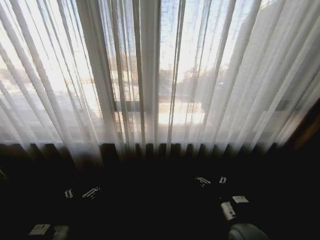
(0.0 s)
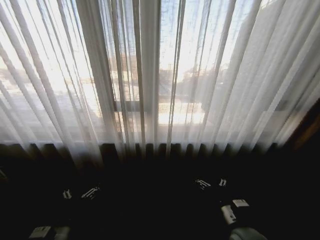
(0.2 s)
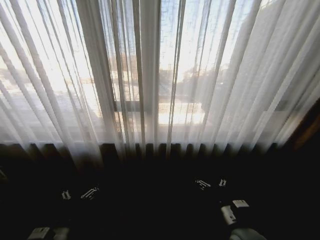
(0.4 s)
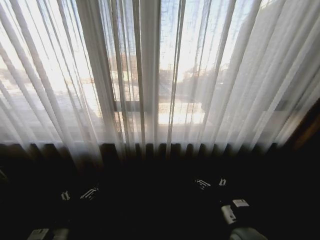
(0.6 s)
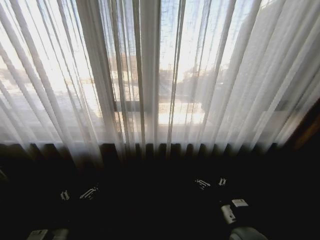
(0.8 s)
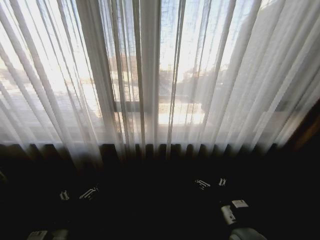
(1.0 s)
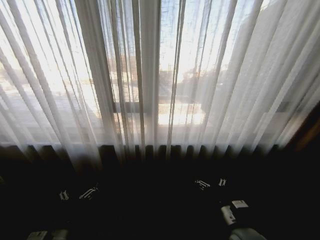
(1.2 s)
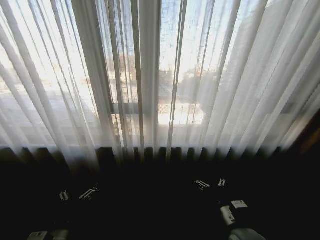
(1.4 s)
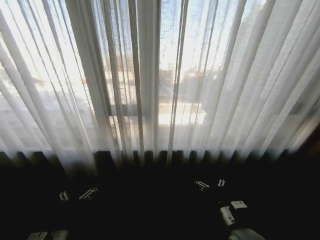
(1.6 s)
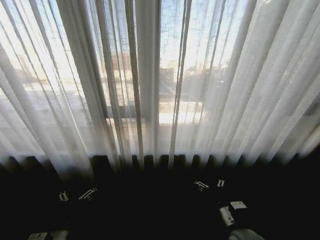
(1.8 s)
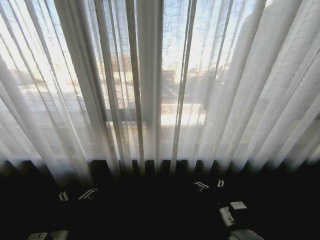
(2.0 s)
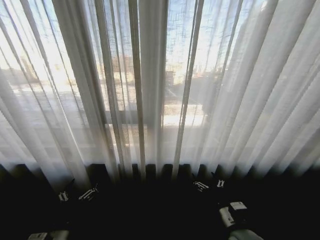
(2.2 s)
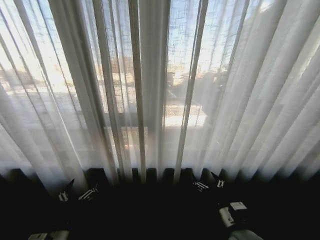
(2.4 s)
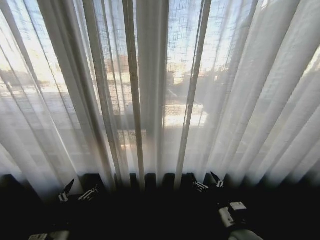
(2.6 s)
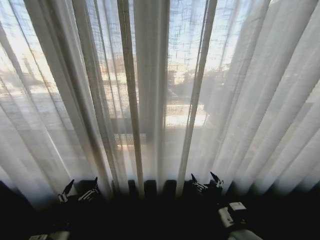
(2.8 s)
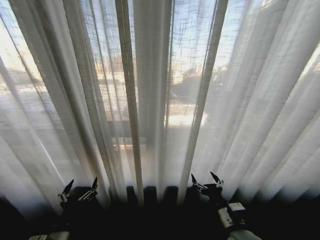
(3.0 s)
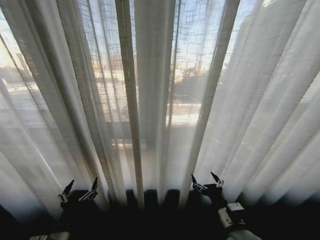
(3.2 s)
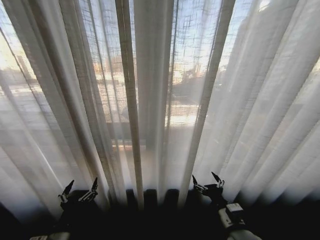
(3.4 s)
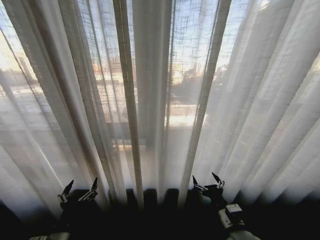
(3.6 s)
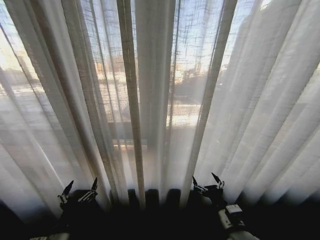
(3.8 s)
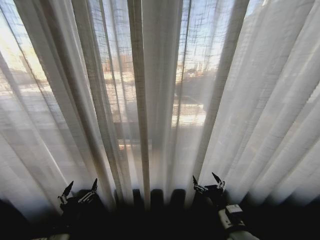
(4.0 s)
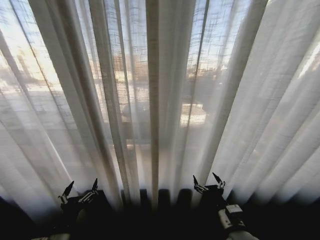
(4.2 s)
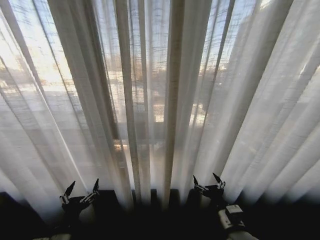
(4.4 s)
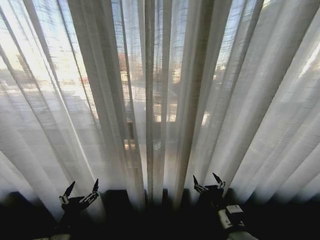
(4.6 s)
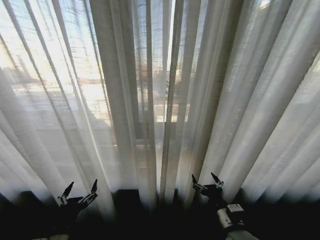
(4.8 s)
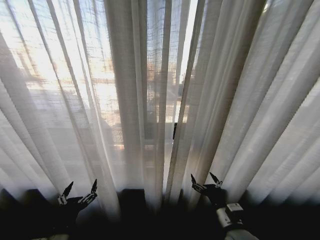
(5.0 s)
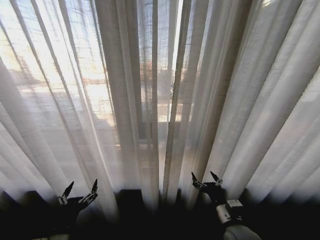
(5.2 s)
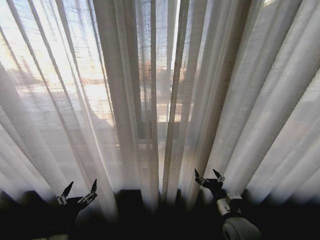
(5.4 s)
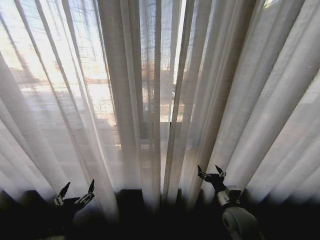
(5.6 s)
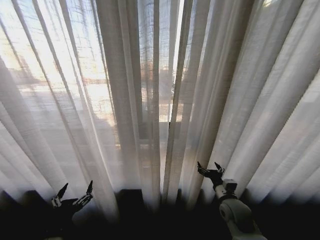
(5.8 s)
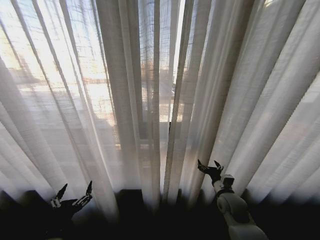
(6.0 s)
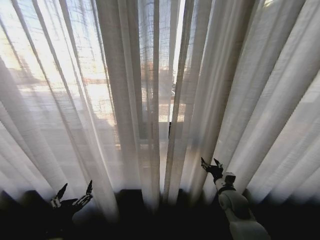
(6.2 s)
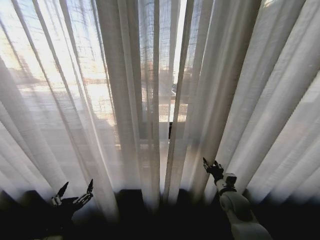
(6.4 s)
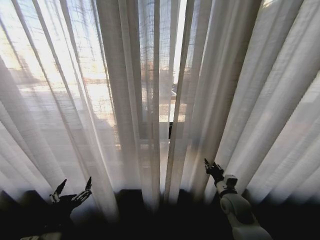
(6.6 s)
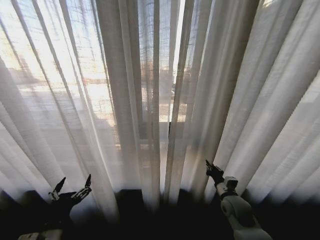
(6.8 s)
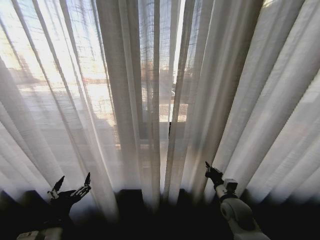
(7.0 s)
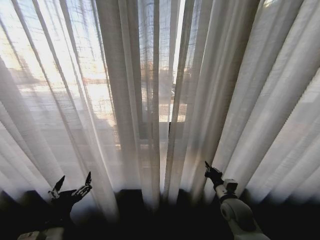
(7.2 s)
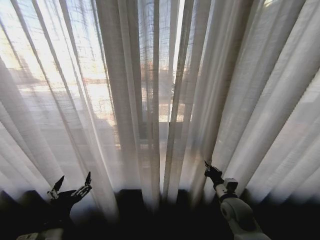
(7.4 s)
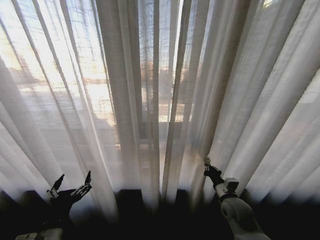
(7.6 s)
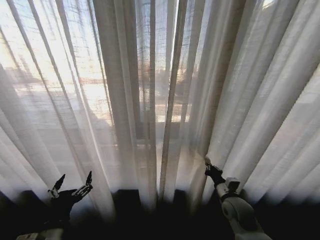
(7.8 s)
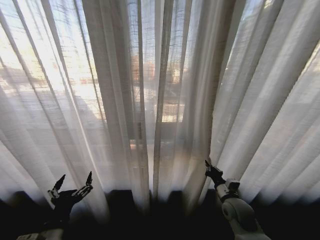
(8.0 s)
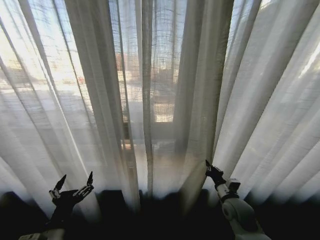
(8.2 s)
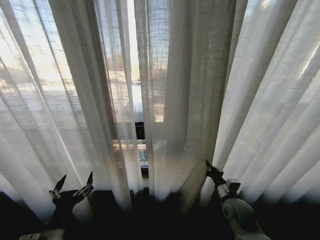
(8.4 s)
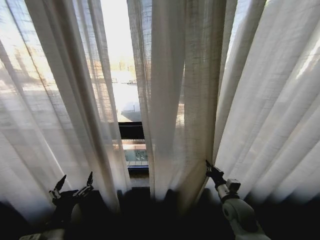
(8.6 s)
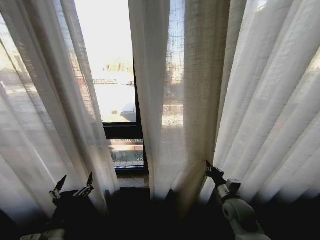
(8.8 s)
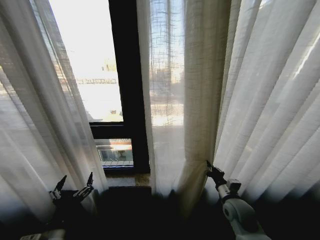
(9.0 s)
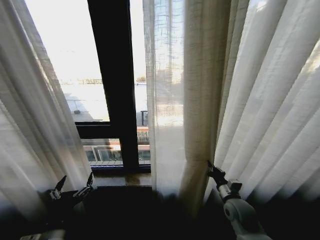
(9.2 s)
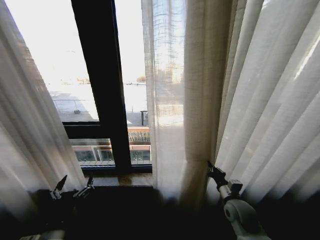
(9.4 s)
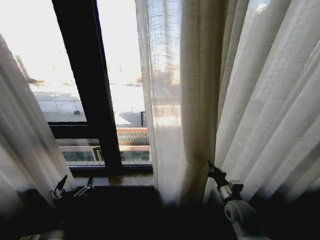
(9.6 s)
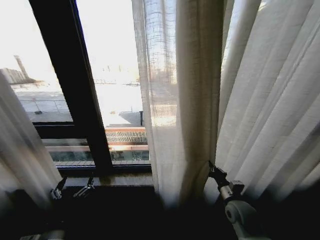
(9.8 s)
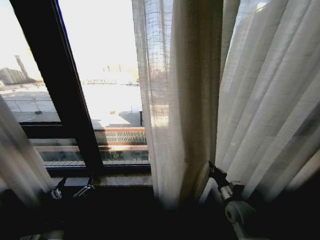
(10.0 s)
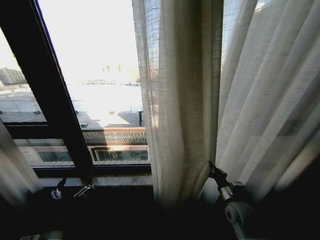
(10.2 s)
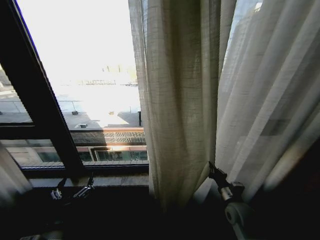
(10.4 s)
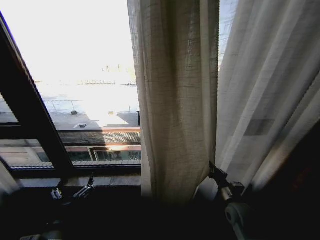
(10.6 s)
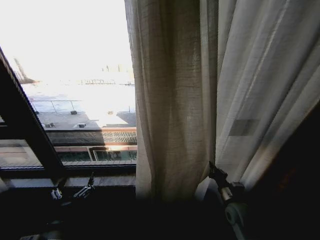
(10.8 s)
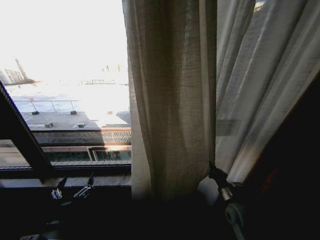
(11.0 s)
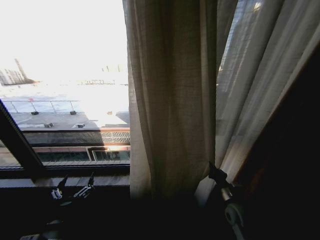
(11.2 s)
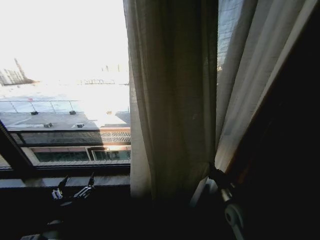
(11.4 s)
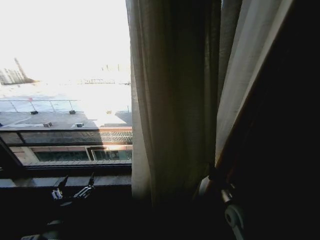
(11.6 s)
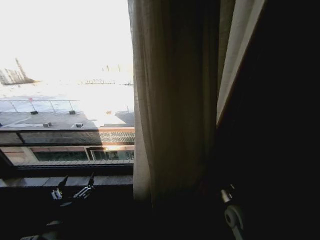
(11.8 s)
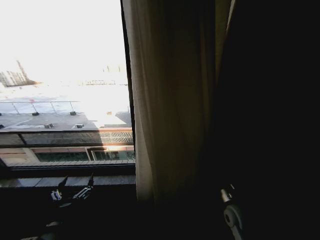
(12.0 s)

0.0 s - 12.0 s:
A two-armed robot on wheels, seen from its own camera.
Task of the whole recording: Open the curtains by pulling them apart, changing their state from closed to fully open.
4.4 s - 6.0 s: The right gripper travels forward by about 15 cm.
6.0 s - 7.6 s: The right gripper closes its fingers.

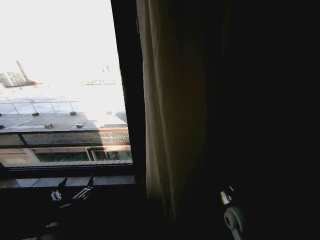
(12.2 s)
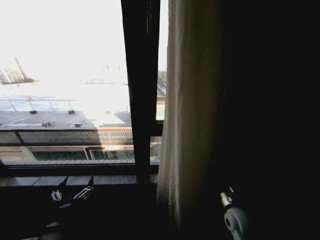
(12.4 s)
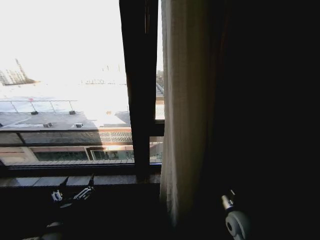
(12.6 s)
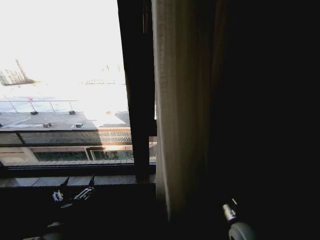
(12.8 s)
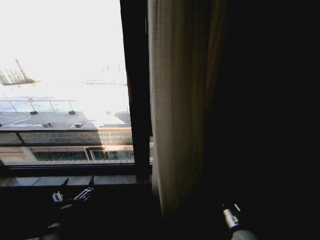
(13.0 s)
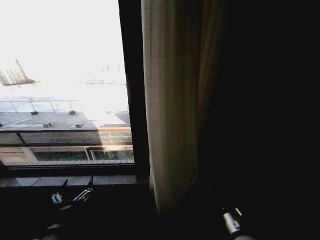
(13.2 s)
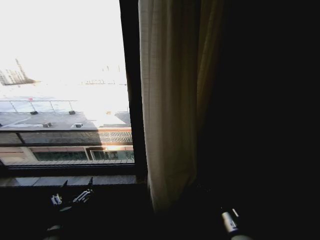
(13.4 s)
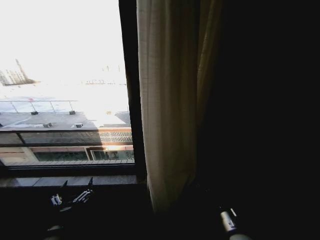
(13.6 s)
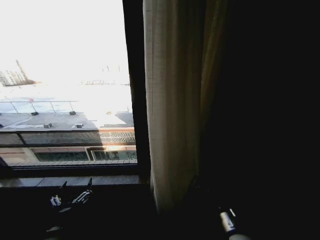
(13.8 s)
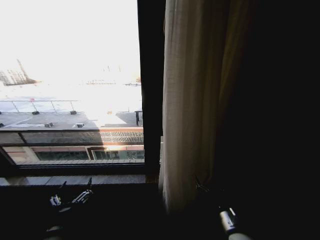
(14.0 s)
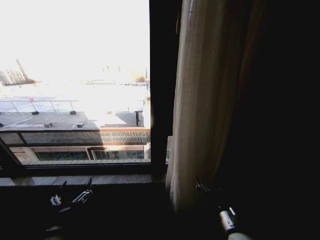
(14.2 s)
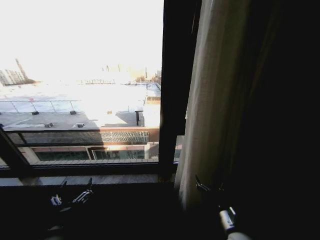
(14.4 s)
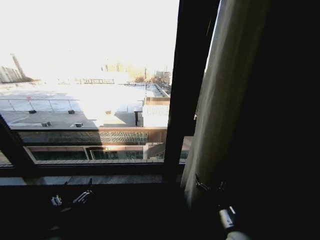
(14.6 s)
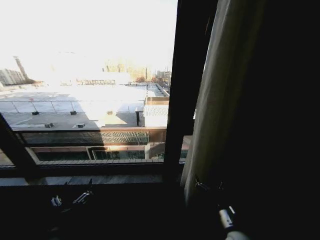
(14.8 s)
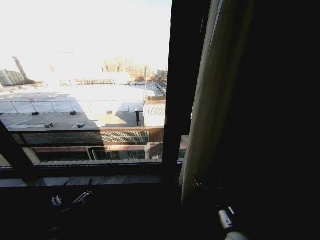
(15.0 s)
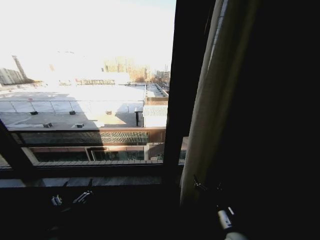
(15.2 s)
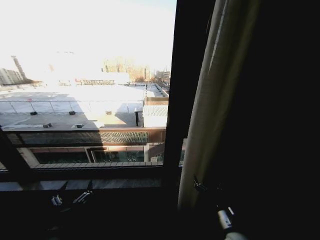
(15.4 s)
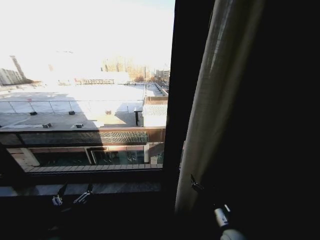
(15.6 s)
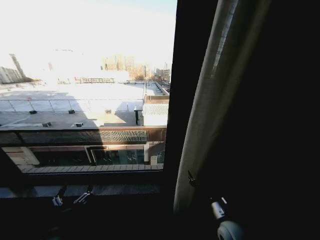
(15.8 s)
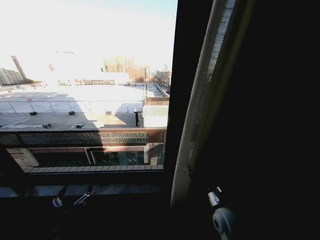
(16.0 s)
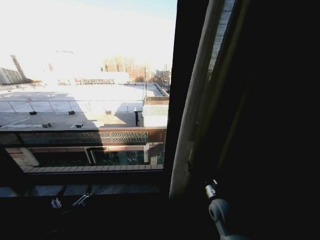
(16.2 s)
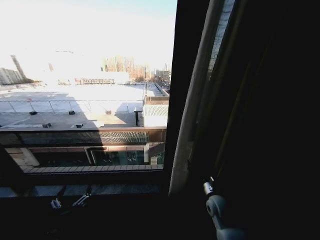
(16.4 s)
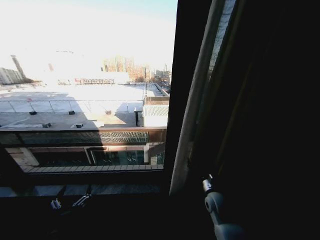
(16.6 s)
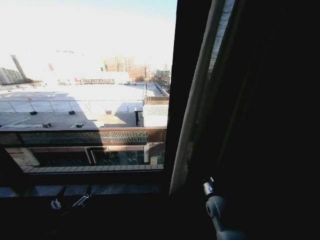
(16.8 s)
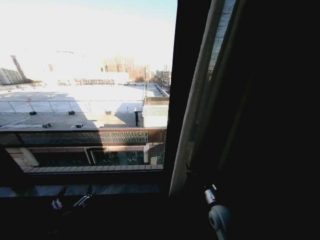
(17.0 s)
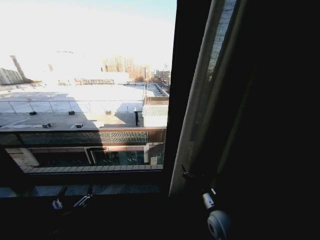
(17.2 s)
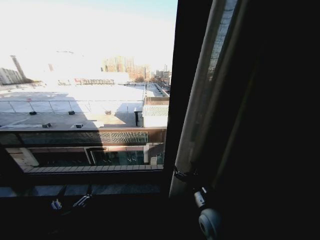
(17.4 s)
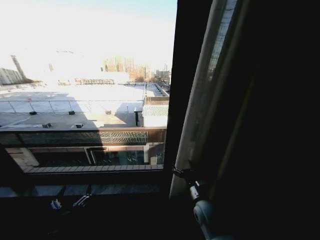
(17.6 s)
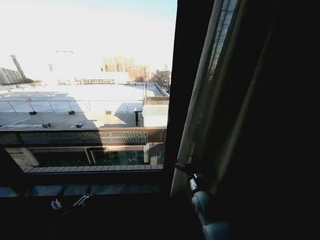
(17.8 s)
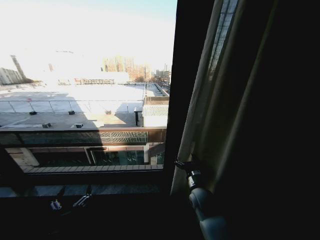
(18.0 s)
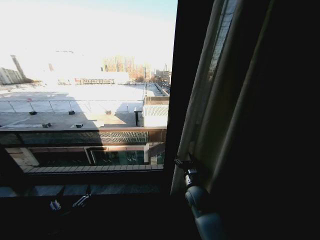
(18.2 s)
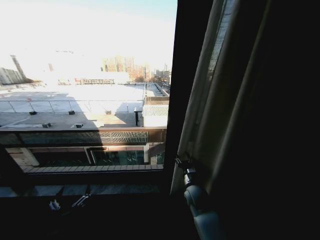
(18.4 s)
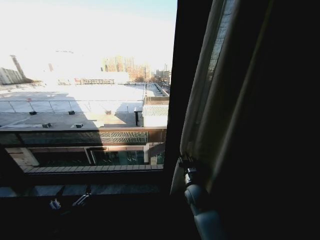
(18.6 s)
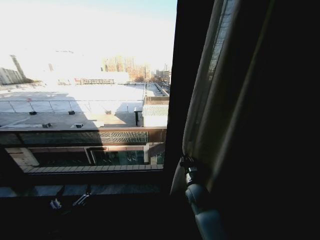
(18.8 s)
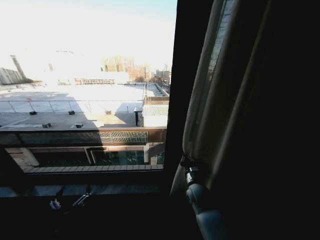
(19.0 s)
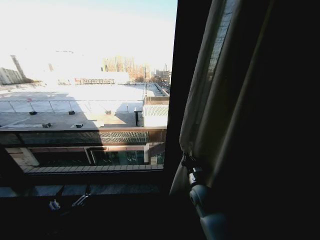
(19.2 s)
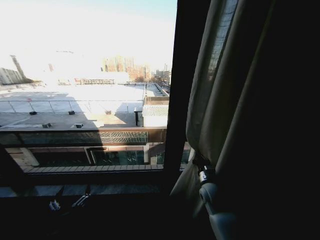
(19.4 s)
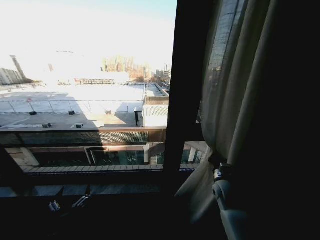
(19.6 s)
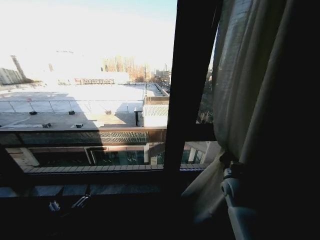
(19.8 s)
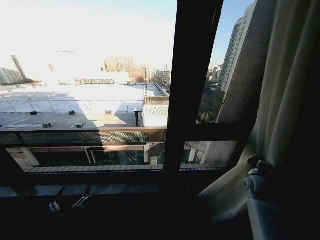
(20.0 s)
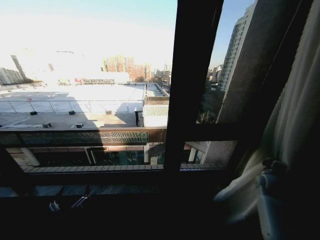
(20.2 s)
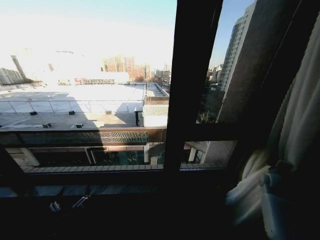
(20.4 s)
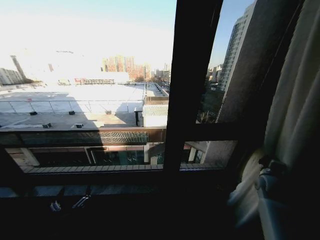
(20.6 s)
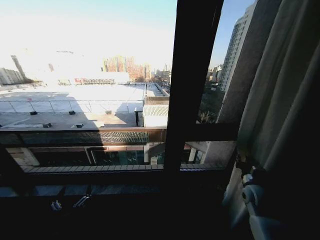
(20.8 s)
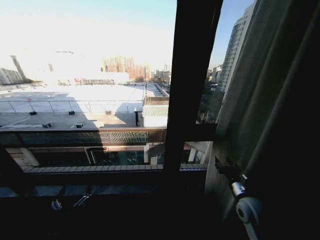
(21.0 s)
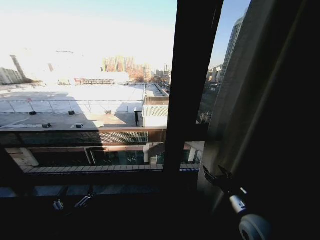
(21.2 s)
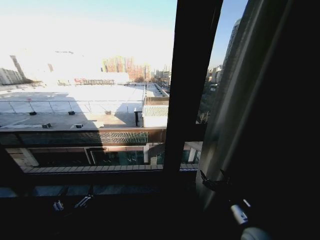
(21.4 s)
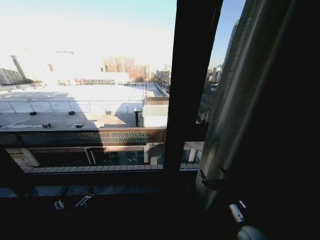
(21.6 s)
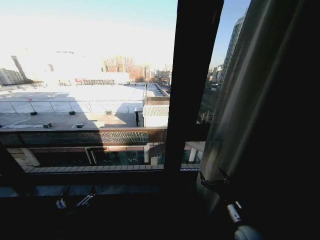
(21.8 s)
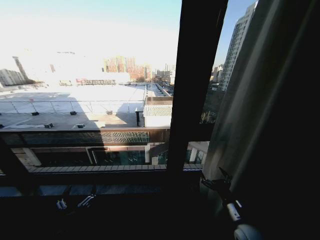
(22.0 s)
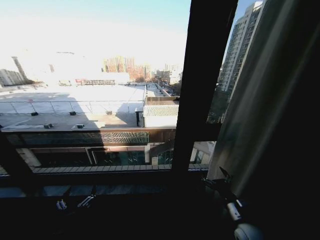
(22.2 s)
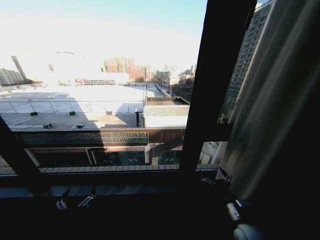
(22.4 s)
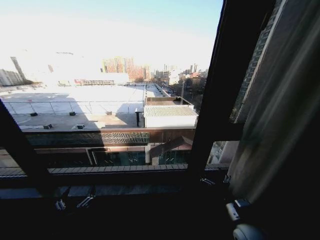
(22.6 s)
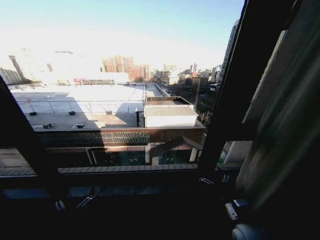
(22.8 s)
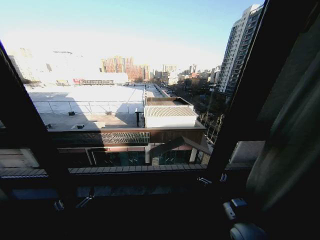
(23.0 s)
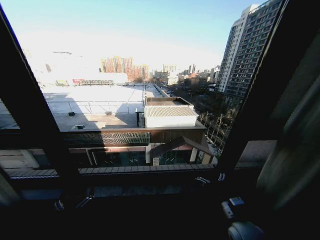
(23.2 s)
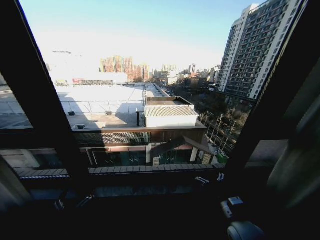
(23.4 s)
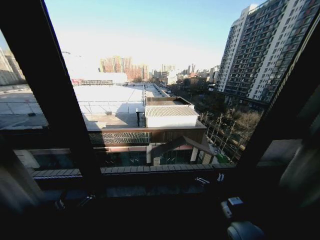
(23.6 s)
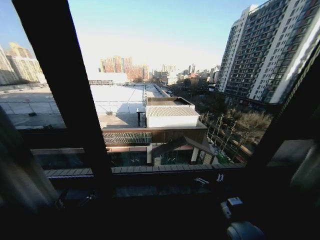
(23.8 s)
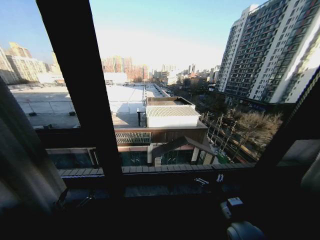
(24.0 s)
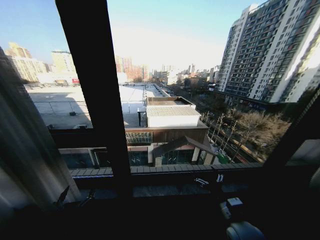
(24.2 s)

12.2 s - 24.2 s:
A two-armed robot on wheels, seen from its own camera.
Task of the whole recording: Open the curtains by pulling them apart, changing their state from closed to fully open.
12.2 s - 13.8 s: The right gripper travels backward and to the left by about 10 cm, and opens.
15.2 s - 16.6 s: The right gripper is displaced forward by about 15 cm.
16.6 s - 18.2 s: The right gripper shifts some 10 cm to the left, and moves some 10 cm backward and comes back.
18.2 s - 19.8 s: The right gripper heads to the right, covering approximately 15 cm, and closes.
19.8 s - 21.2 s: The right gripper goes some 15 cm backward, travels to the right and back again, about 20 cm each way, and opens up.
21.2 s - 22.6 s: The right gripper moves downward, about 5 cm.
